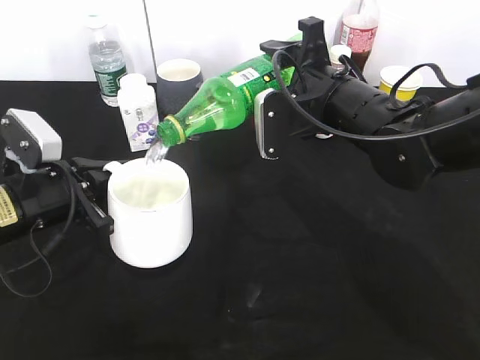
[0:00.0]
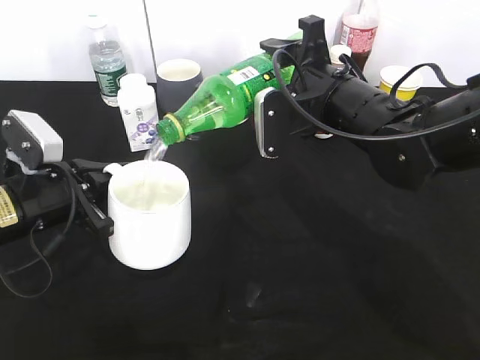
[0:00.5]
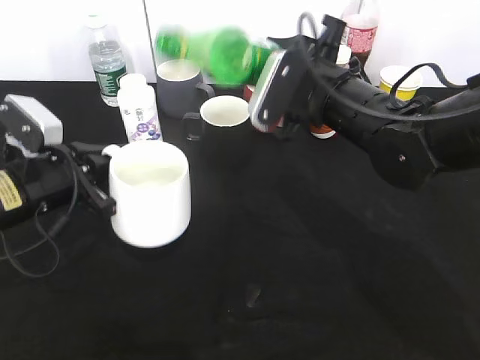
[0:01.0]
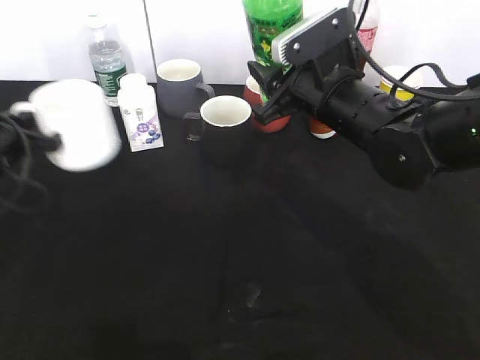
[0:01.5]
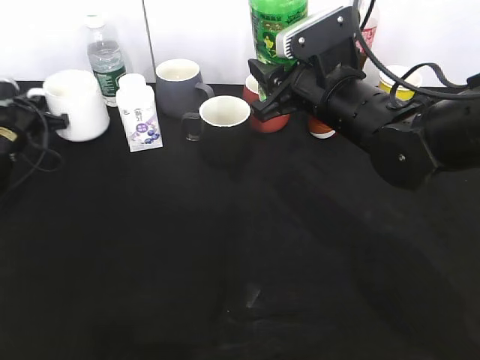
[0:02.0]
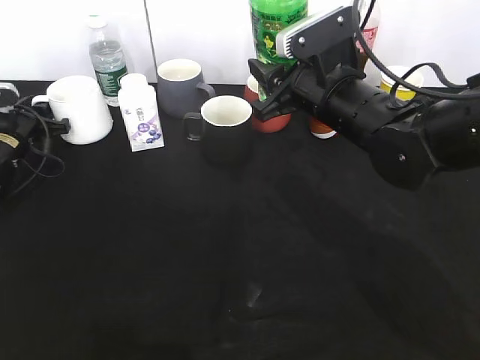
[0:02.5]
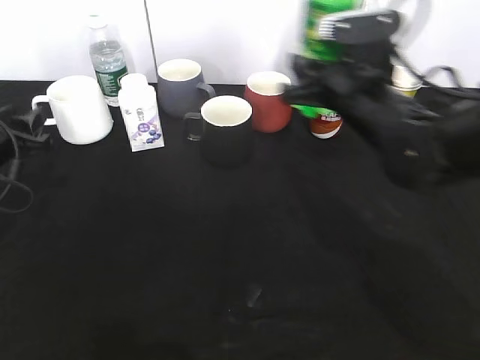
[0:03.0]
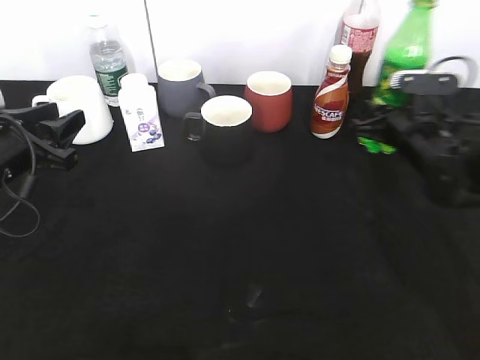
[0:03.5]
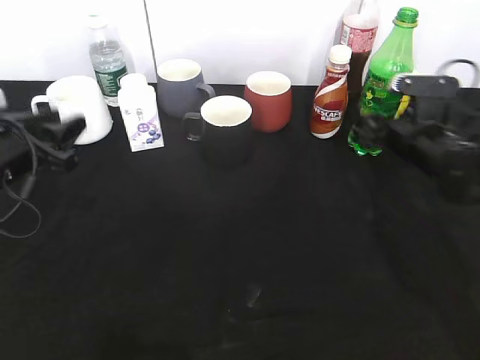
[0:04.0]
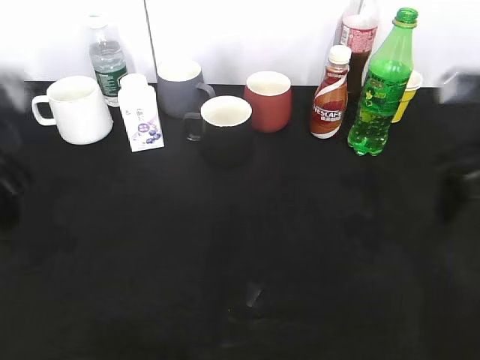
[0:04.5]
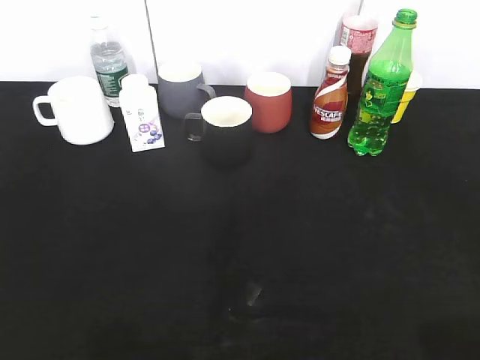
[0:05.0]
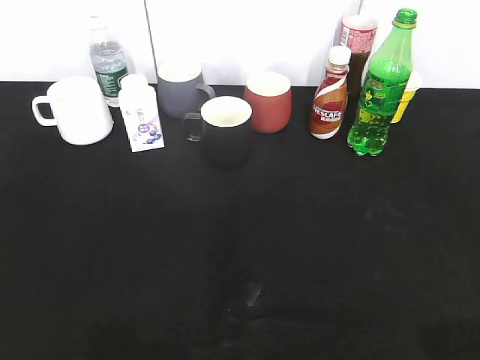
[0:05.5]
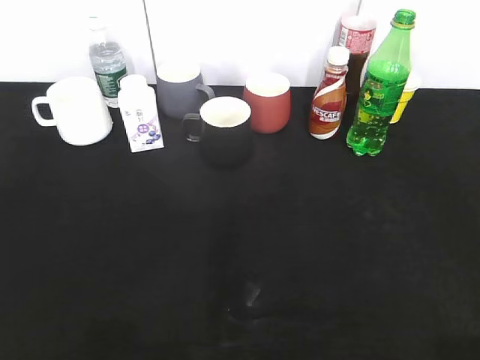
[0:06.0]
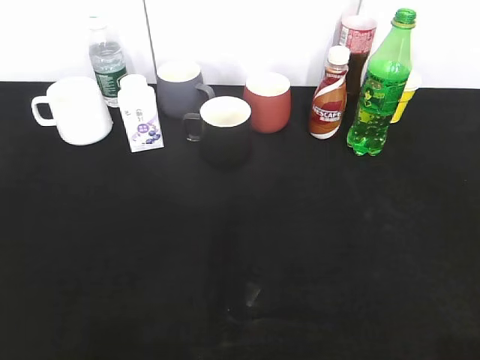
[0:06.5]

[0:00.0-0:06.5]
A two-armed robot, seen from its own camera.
Step, 0:01.5 to 0:02.5: Place the white cup on the table with left gripper.
Step, 0:03.0 to 0:03.5: Pour the sprite from bottle to cup with right gripper.
0:00.0 to 0:02.0: The left gripper is displaced forward and to the left by roughly 25 cm.
0:02.0 to 0:04.5: The right gripper heads to the right and backward, covering some 15 cm, and opens up. Meanwhile the left gripper travels backward, upward and to the right by some 30 cm, and opens its fingers.
0:04.5 to 0:06.5: Both grippers travel together backward, roughly 25 cm.

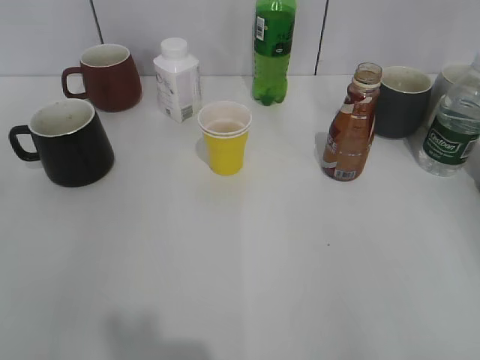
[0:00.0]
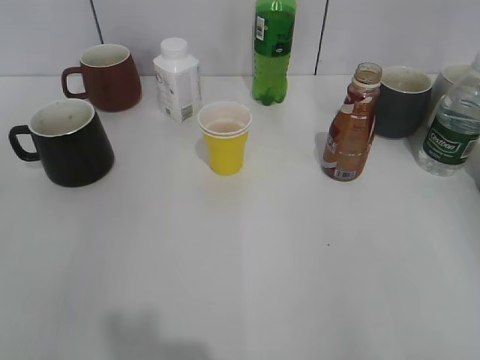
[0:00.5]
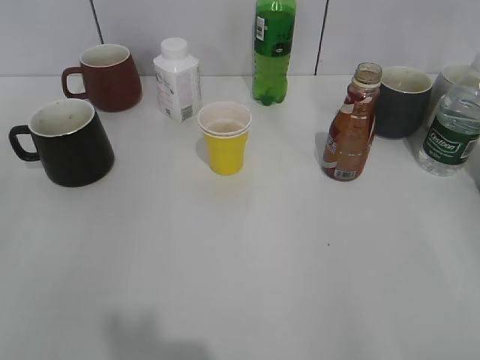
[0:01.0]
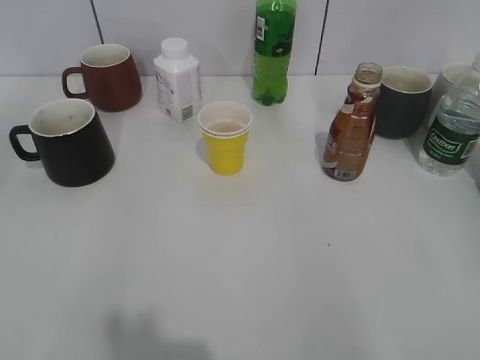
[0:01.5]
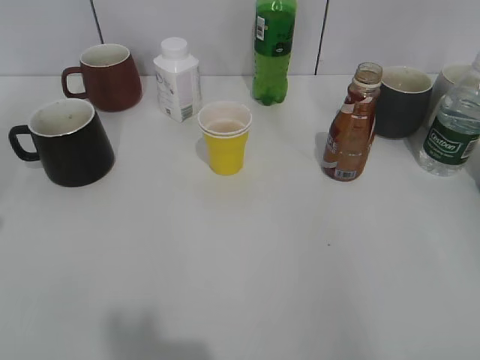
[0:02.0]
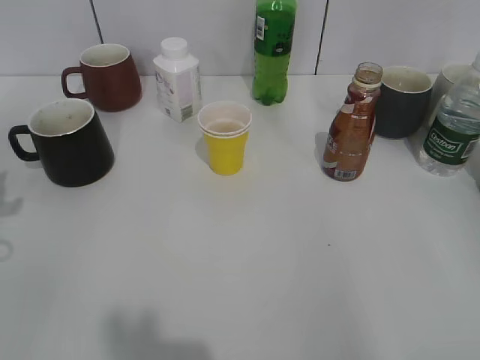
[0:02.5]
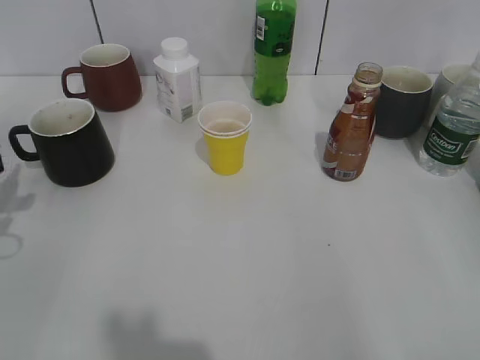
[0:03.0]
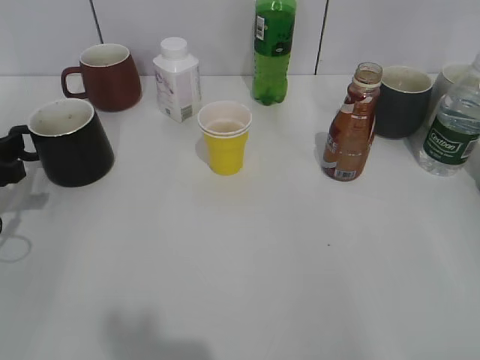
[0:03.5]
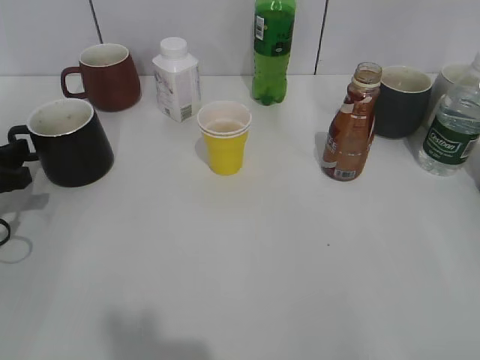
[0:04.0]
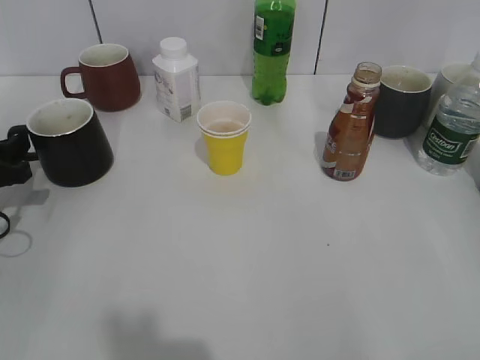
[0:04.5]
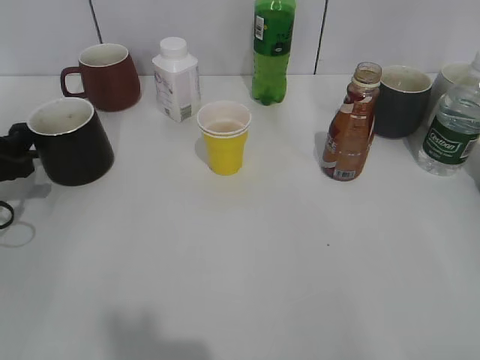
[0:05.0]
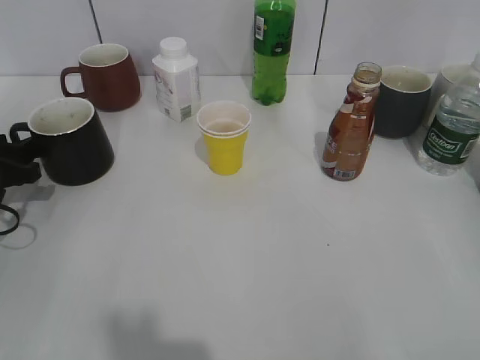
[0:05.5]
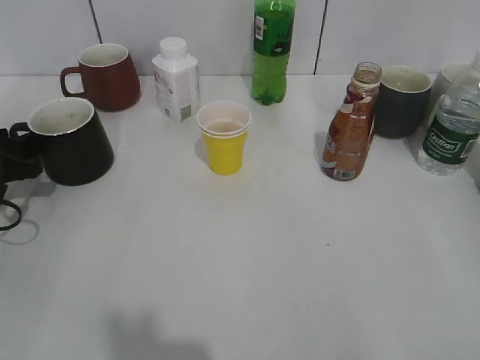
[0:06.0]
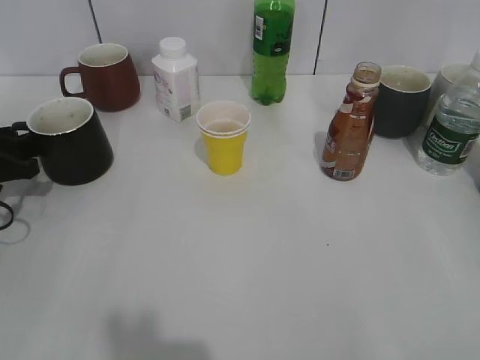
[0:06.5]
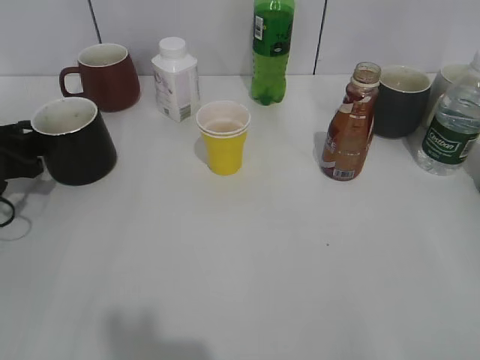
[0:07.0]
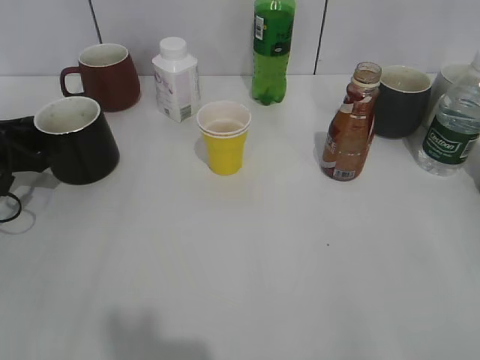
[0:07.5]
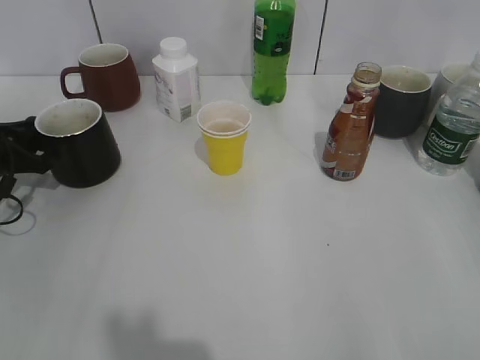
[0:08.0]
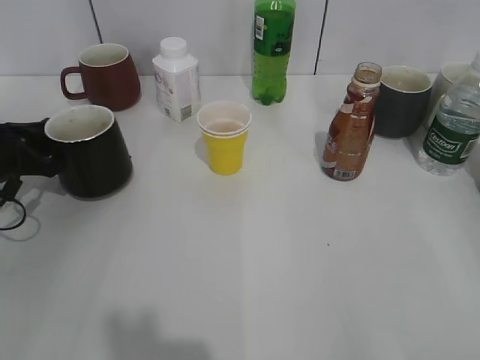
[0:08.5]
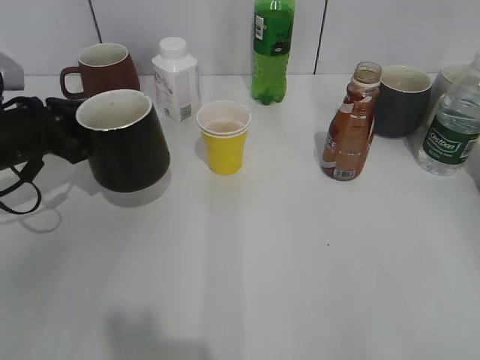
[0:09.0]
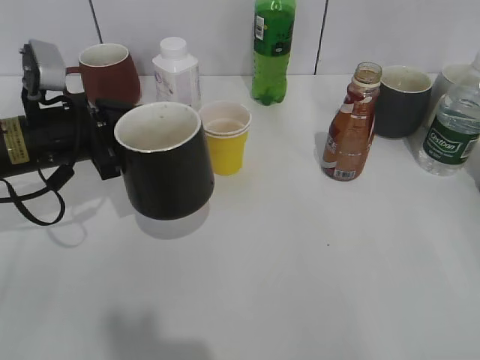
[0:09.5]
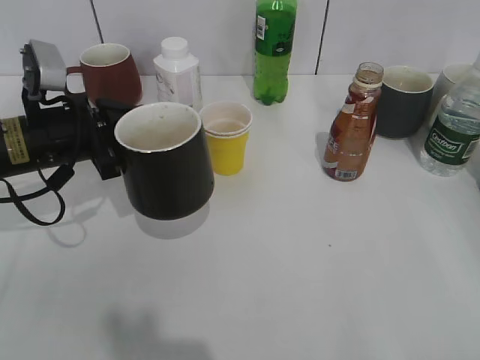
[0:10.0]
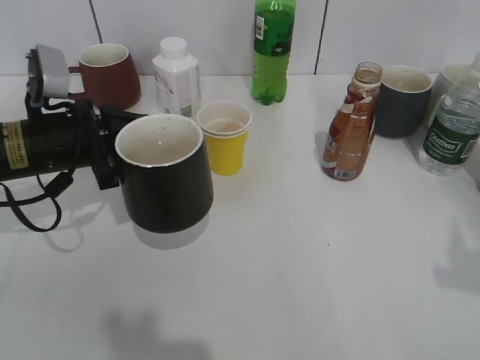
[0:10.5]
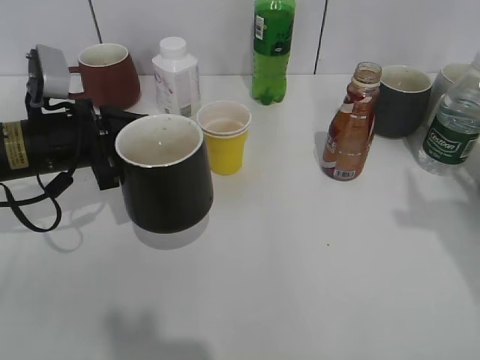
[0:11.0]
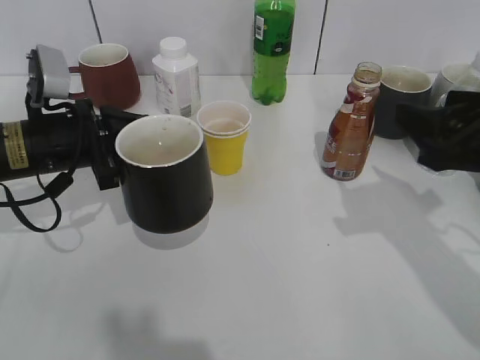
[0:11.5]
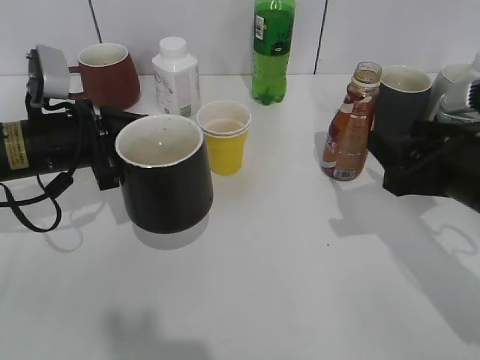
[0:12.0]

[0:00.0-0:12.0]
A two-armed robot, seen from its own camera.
Step, 0:01.0 to 0:07.5: Grasp the black cup with left gripper.
Step, 0:08.0 to 0:09.5: Lift the black cup with left gripper.
0:02.0 to 0:04.0: The left gripper travels downward and forward by about 20 cm.
0:04.0 to 0:06.0: The grippers move only a little.
0:06.0 to 0:08.0: The left gripper closes its fingers.
0:08.0 to 0:10.0: The left gripper shifts approximately 15 cm to the right and upward.
0:10.0 to 0:12.0: The right gripper goes some 25 cm forward and to the left.

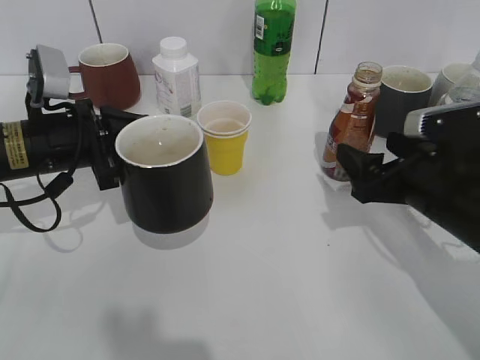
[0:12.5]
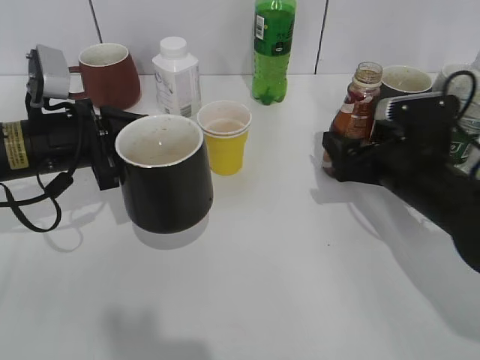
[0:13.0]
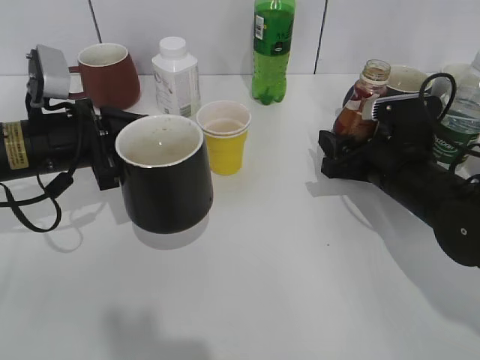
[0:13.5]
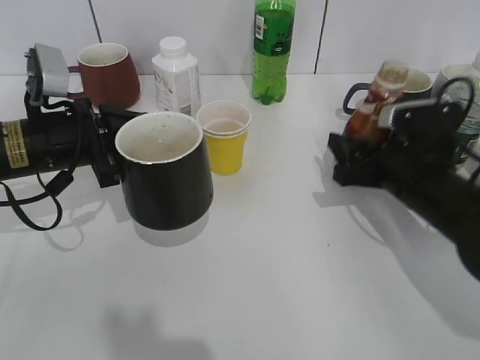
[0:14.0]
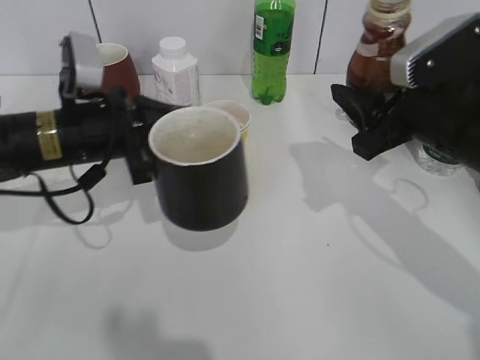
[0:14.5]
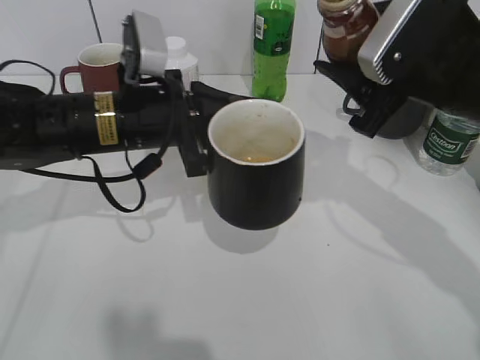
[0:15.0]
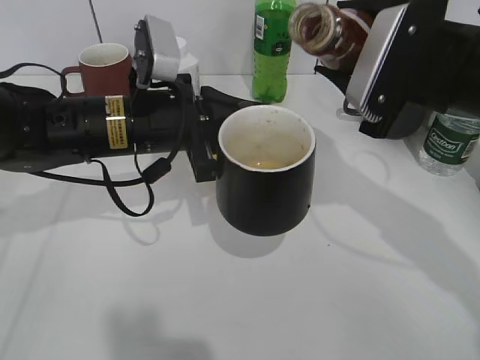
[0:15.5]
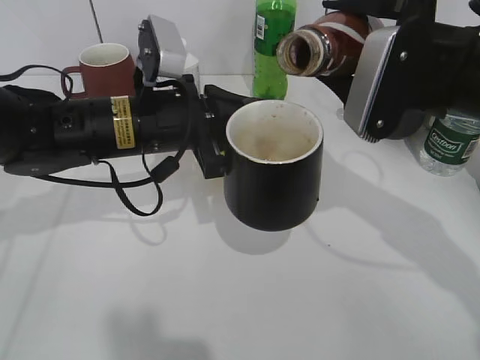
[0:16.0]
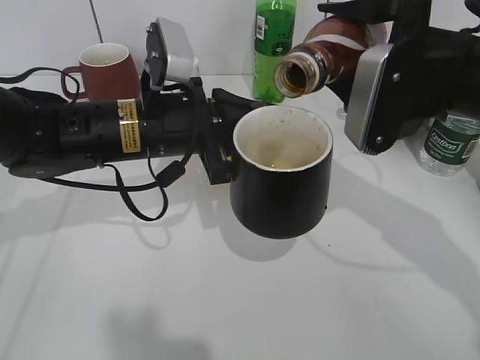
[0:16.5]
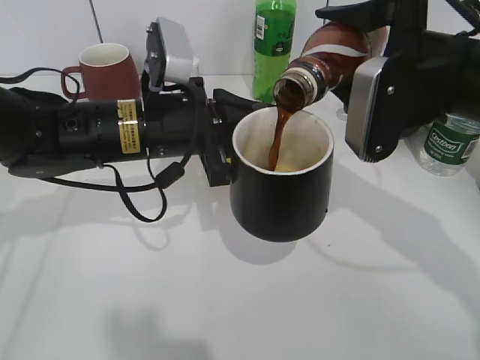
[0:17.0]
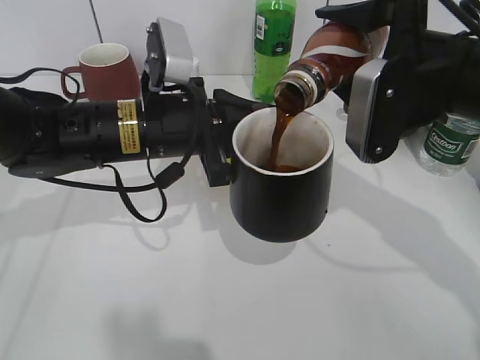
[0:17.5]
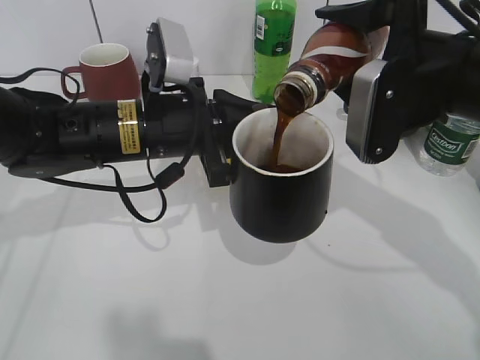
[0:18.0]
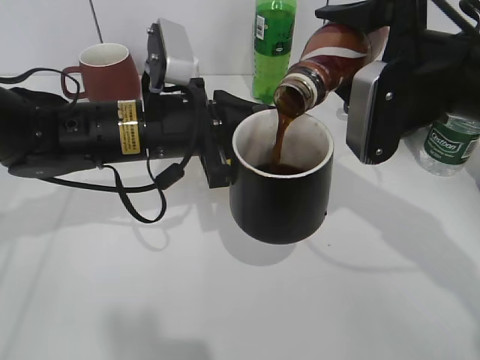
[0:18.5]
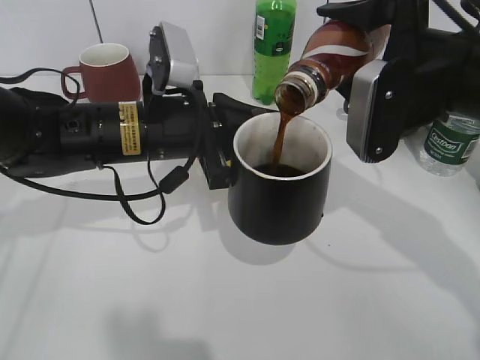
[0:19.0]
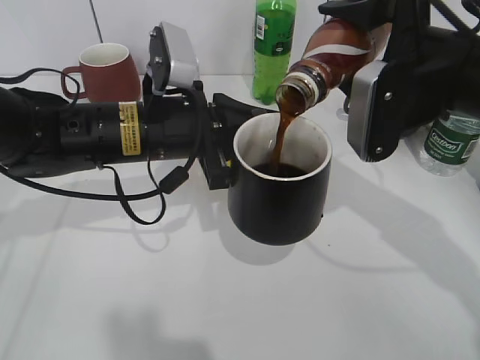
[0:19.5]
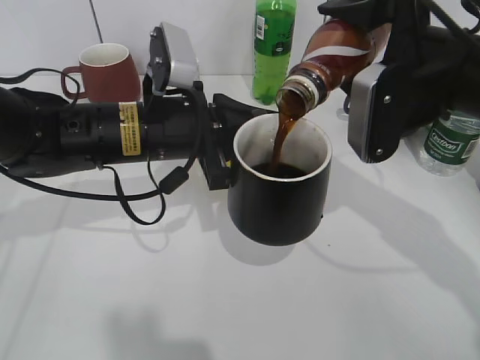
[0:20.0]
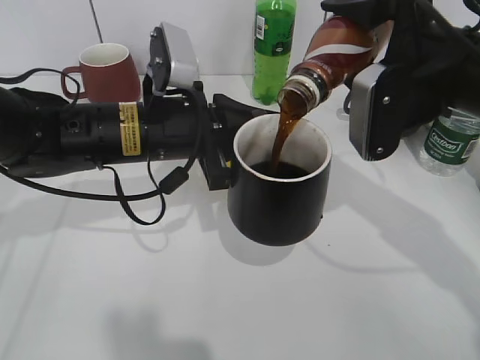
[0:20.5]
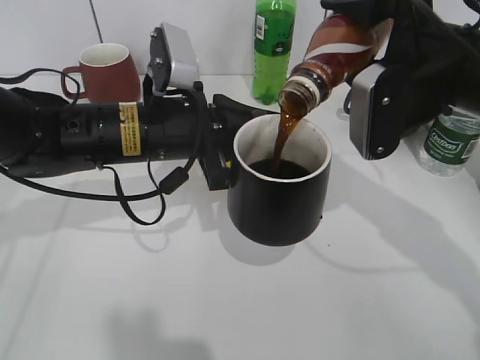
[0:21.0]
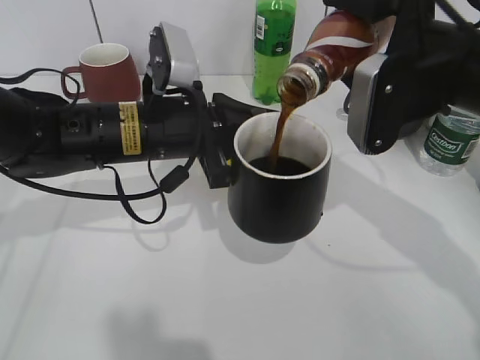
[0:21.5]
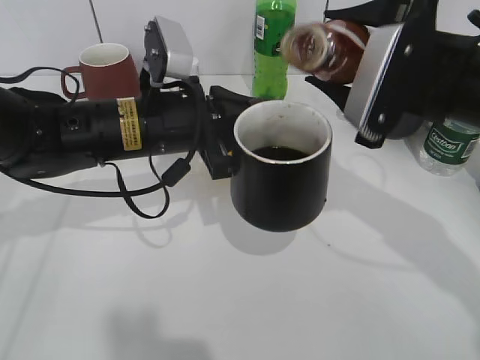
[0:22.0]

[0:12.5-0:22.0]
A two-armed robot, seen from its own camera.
Step, 0:14.0 to 0:21.5: Pour the coffee from bottle to cup with right gripper.
0:12.5 to 0:14.5: The right gripper moves upward, some 5 cm, and closes its fingers.
0:14.5 to 0:16.5: The right gripper changes place by about 5 cm. Meanwhile the left gripper travels to the right by some 10 cm.
0:16.5 to 0:20.0: The grippers stay close to where they were, moving slightly.
